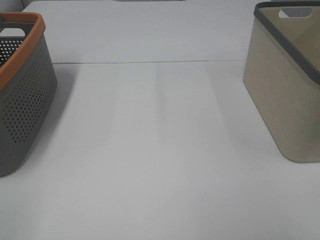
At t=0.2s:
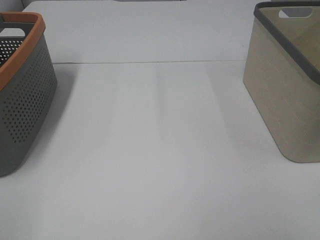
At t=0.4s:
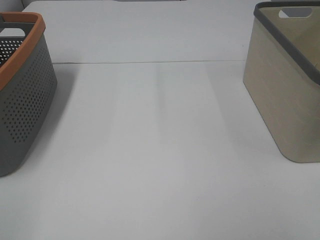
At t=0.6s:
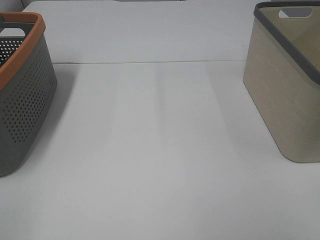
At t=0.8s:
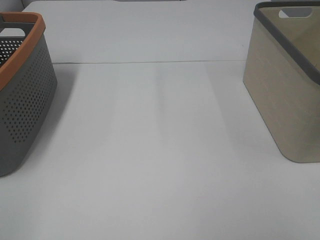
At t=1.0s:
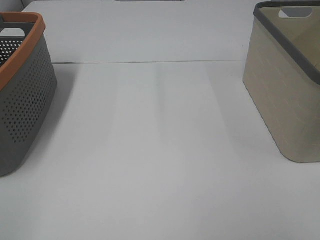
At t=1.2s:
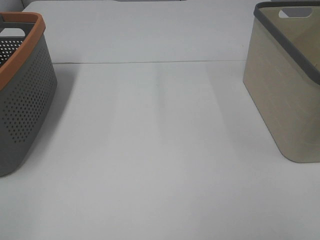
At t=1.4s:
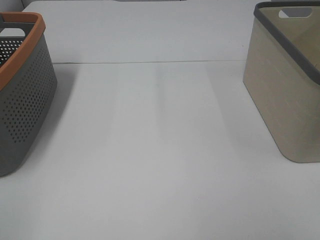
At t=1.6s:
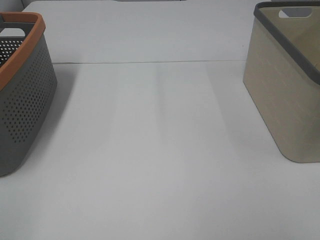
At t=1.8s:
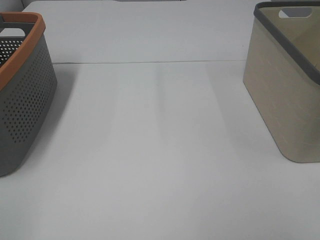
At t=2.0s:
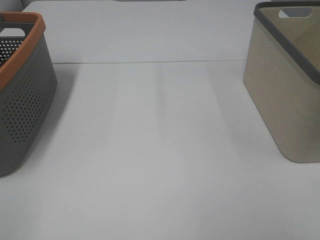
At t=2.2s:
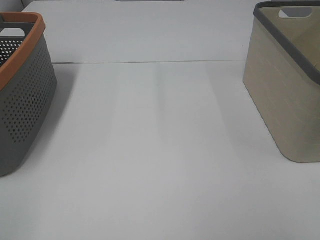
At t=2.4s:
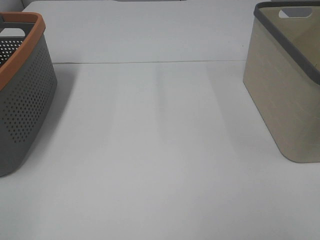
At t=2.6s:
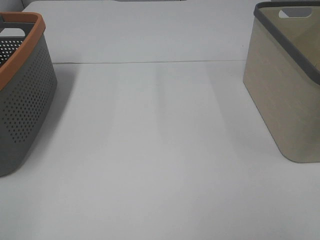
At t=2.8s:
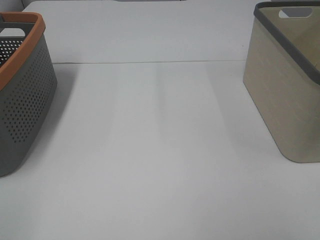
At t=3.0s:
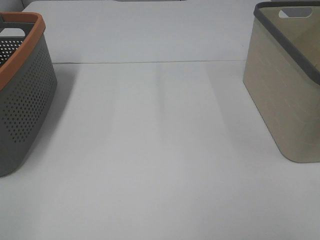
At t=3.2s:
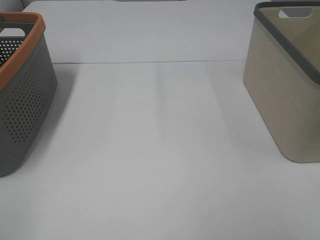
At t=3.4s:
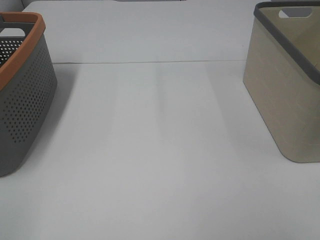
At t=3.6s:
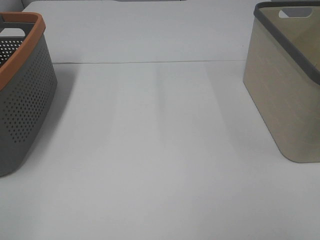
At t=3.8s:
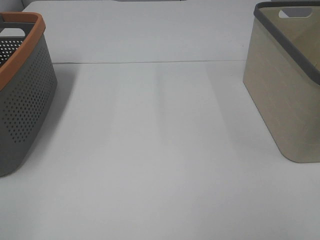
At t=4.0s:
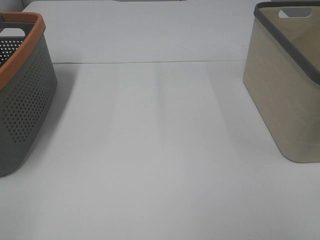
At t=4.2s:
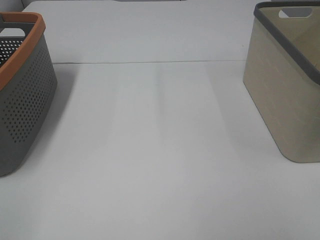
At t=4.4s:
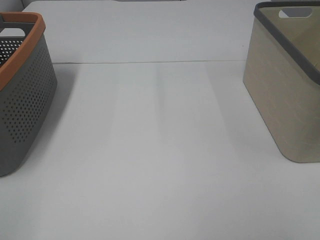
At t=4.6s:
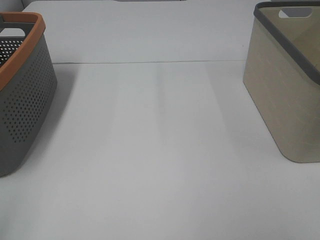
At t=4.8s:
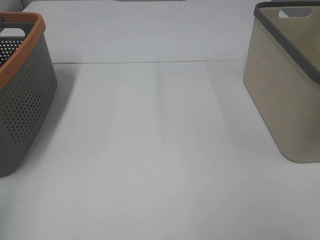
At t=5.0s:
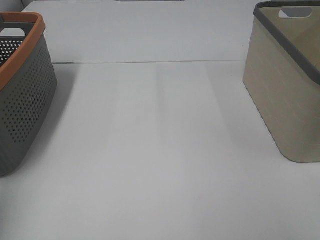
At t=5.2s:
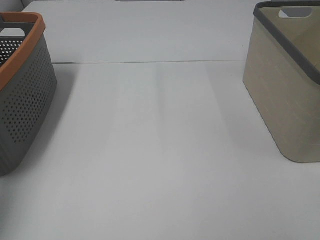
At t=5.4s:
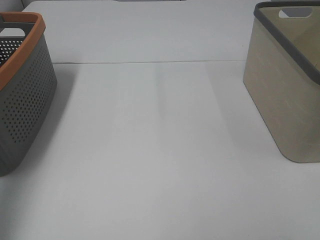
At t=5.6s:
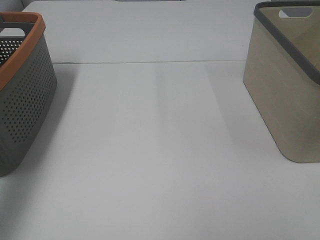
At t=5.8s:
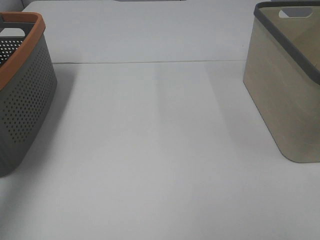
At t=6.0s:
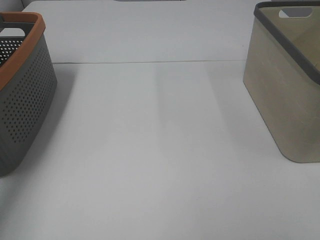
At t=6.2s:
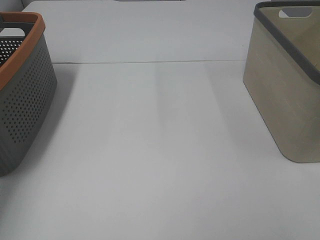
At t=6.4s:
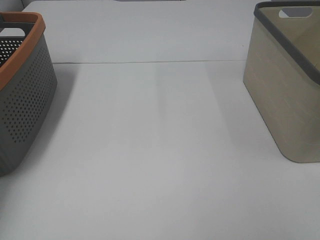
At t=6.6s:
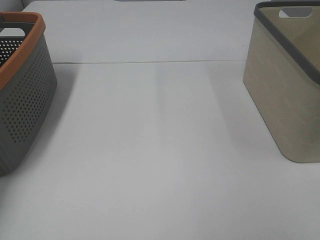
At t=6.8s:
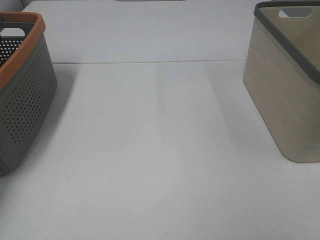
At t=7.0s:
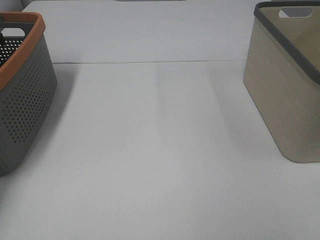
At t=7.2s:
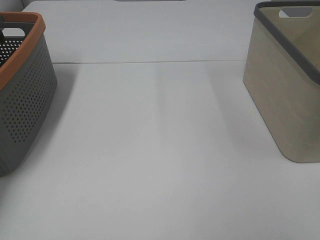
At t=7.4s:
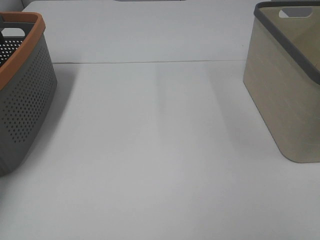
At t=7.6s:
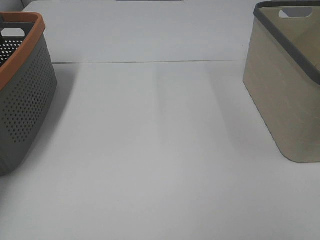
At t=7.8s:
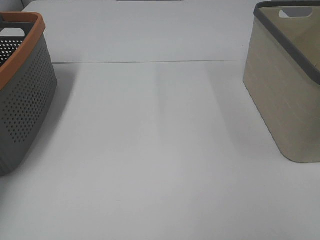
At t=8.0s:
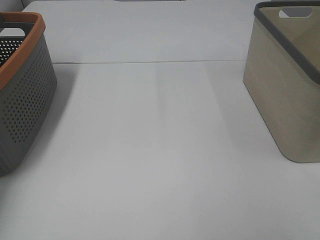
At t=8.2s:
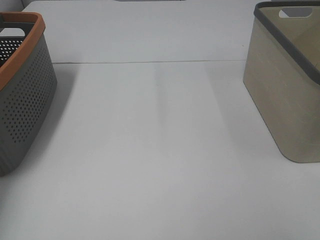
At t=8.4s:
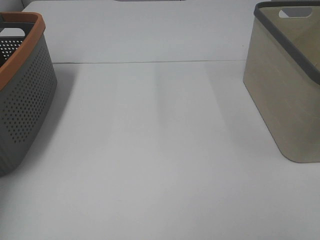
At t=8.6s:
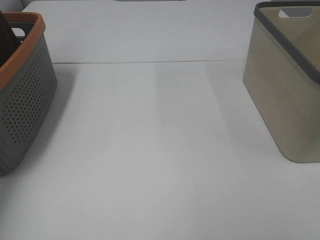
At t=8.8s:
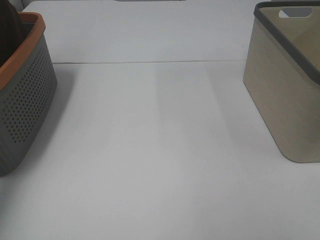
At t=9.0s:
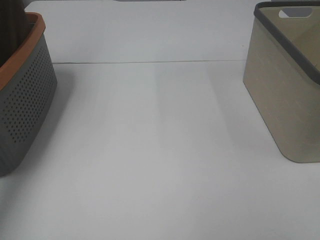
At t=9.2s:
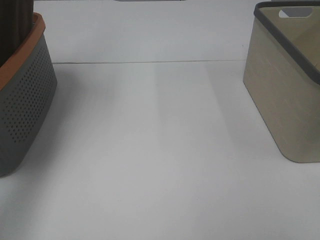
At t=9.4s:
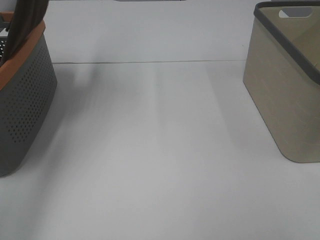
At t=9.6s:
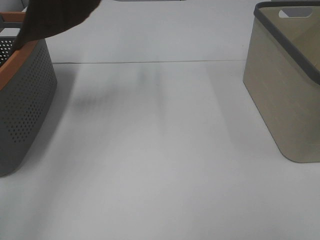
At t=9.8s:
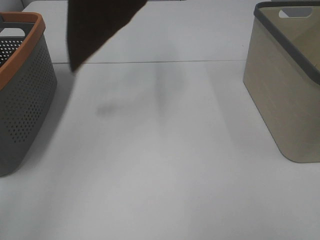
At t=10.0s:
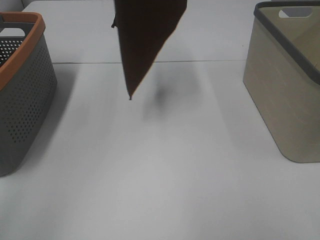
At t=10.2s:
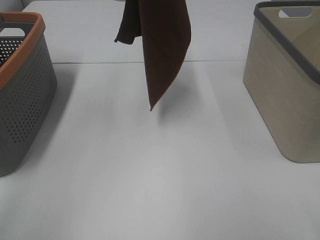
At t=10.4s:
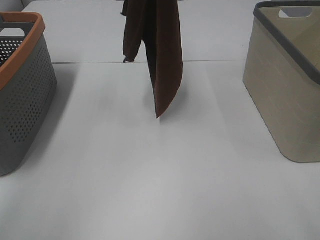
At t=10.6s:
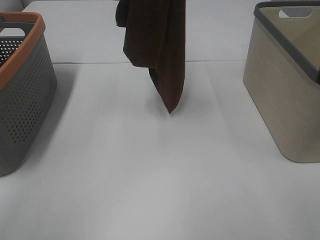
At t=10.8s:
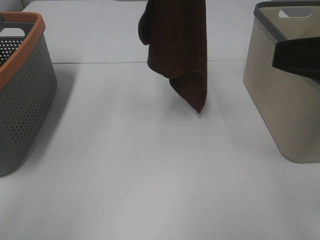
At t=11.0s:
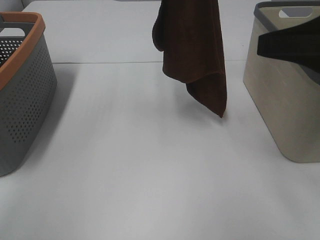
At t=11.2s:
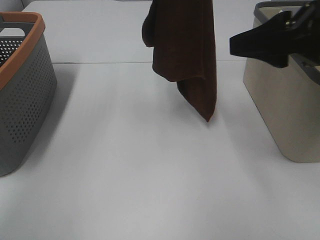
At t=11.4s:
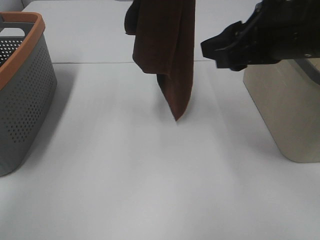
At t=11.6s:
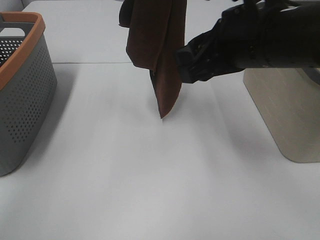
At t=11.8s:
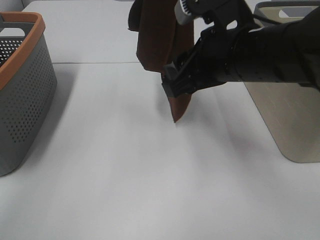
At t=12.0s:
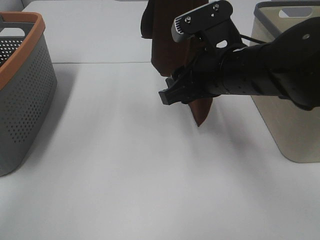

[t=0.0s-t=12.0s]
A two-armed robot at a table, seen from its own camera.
Task of the whole recording: Remove the towel and place it.
t=0.0s to t=4.4s: The two grippers keep their place.
t=4.4s to t=6.0s: The left gripper is displaced forward by about 40 cm.
t=6.0s to t=7.6s: The left gripper goes some 10 cm downward and forward, and closes its fingers.
t=7.6s to t=9.0s: The left gripper moves upward, some 30 cm.
t=9.0s to t=10.4s: The right gripper ends up about 5 cm from where it was; the left gripper goes roughly 20 cm to the right.
t=10.4s to t=12.0s: The right gripper moves forward, to the left and downward, about 30 cm.

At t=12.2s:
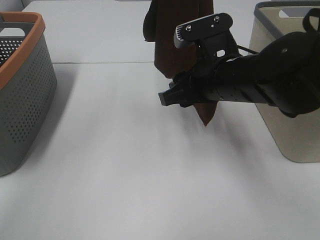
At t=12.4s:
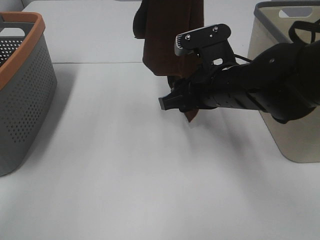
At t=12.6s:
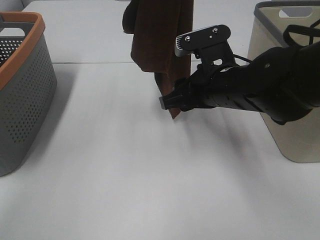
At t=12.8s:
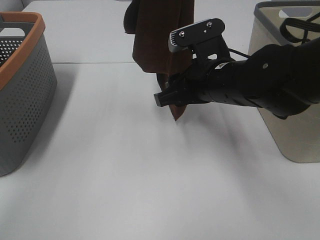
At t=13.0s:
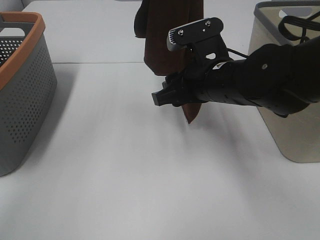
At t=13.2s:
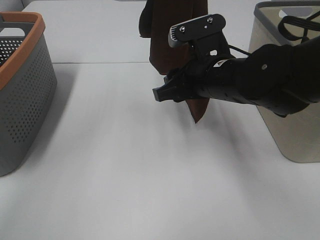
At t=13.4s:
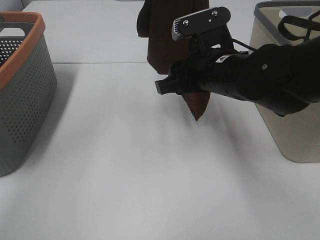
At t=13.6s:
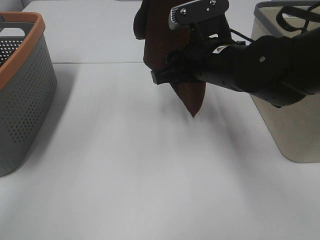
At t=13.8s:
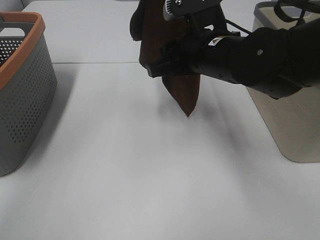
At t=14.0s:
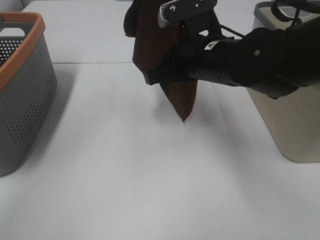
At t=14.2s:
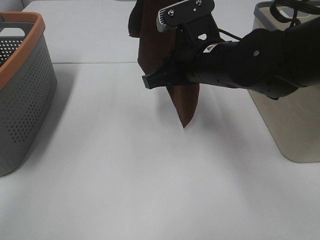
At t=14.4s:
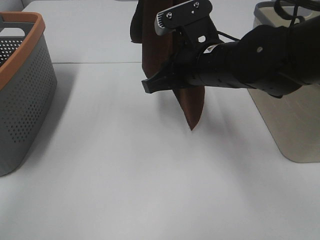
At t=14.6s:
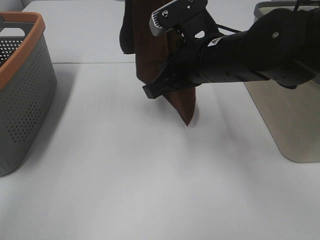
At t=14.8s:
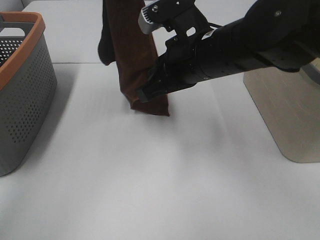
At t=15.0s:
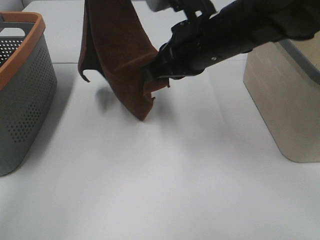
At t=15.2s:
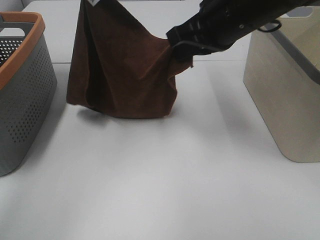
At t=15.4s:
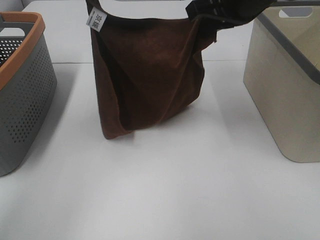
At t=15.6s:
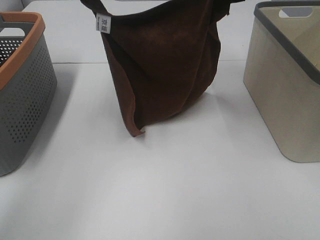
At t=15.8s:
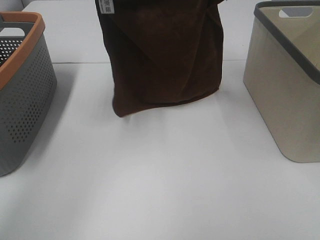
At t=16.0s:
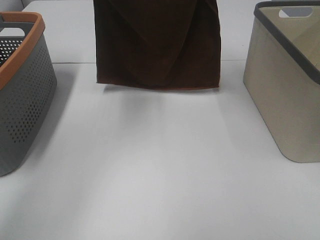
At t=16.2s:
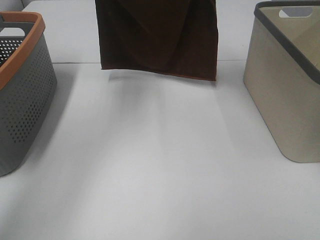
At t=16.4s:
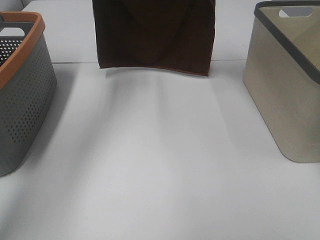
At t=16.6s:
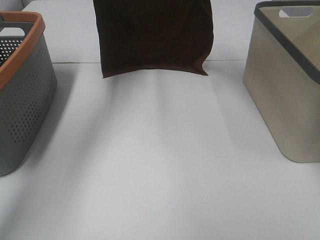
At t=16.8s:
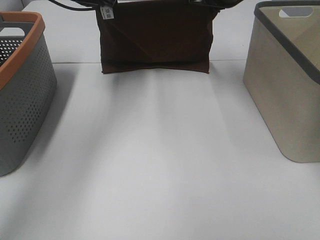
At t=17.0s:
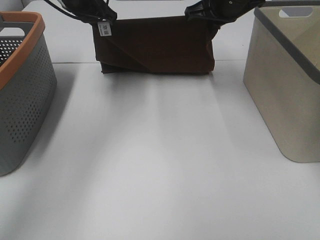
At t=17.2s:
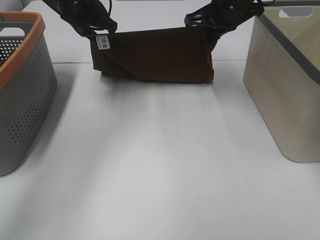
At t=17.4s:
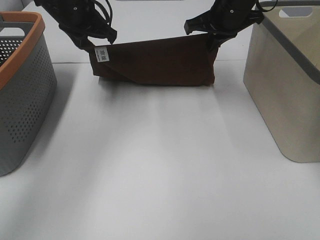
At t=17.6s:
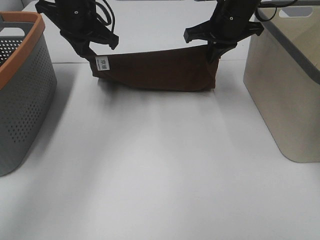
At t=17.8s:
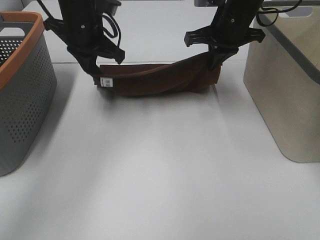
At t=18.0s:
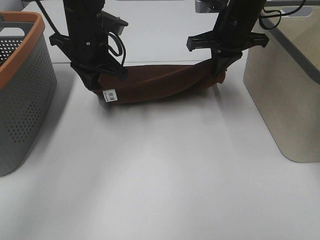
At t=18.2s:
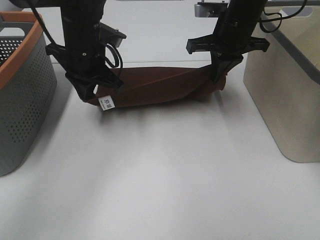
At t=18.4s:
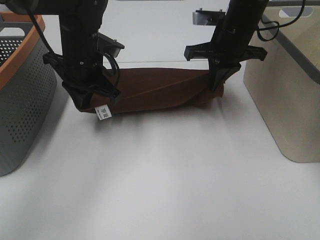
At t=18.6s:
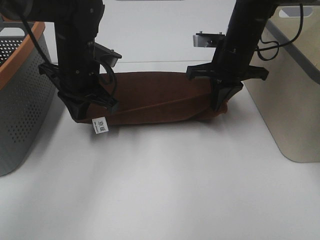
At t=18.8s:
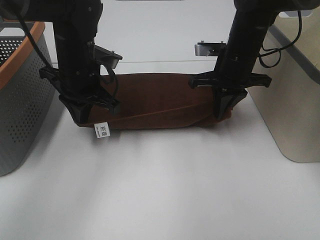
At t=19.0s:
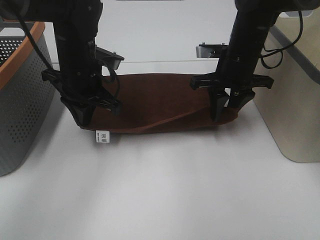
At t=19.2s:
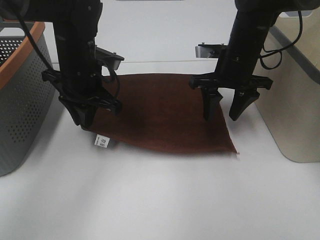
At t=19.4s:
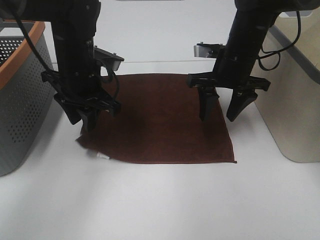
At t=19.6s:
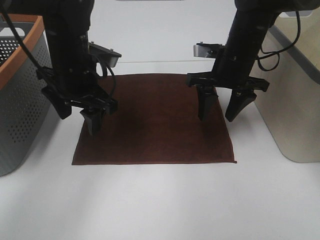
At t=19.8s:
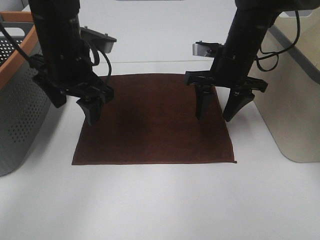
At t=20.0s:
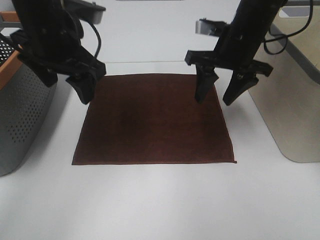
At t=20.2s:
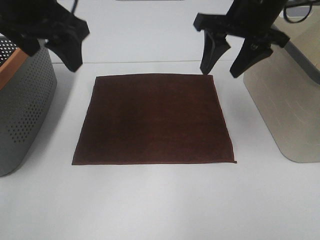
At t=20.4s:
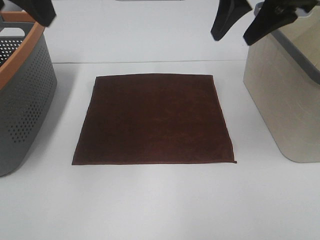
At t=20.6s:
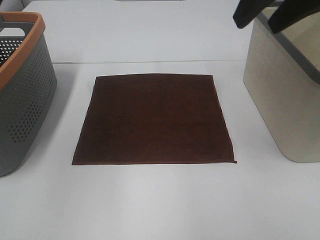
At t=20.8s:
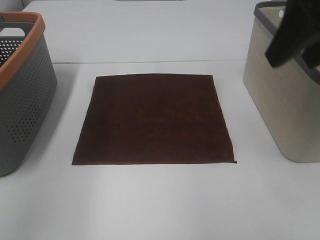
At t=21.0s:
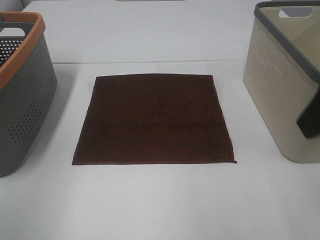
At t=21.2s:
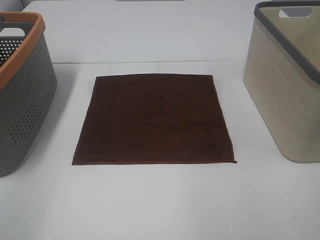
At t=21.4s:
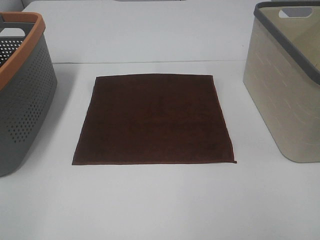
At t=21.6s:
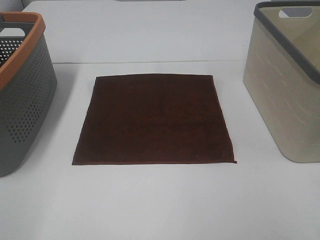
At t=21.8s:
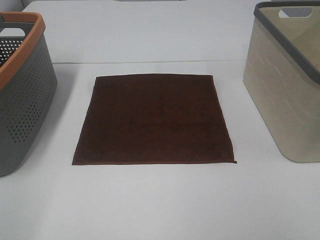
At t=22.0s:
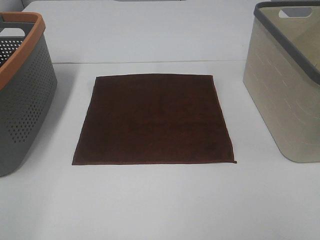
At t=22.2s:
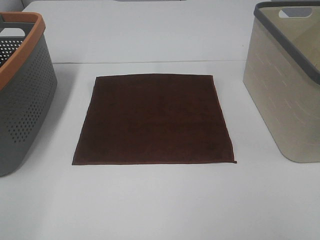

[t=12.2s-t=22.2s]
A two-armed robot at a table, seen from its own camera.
Task of the whole recording: Remove the towel and place it.
Step, t=12.8s to t=15.4s: Left hand: spread the brown towel flat on the table.
Step, t=12.8s to t=15.4s: Right hand: spread the brown towel flat on the table.
t=12.2s to t=13.6s: The grippers stay close to where they were, moving slightly.
t=13.6s to t=15.0s: The left gripper is displaced to the left by roughly 5 cm; the right gripper closes its fingers.
t=15.0s to t=16.4s: The right gripper heads forward, covering some 20 cm. Meanwhile the left gripper heads forward and downward, covering about 15 cm.
t=16.4s to t=18.0s: Both grippers travel together downward and backward, approximately 15 cm.
t=18.0s to t=19.4s: The right gripper shifts about 5 cm downward, and opens; the left gripper goes about 5 cm backward, and opens up.
t=19.4s to t=20.8s: The left gripper shifts roughly 35 cm backward, upward and to the left, and opens; the right gripper goes approximately 25 cm upward and backward.
t=20.8s to t=22.2s: The right gripper travels backward, downward and to the right by approximately 20 cm. The left gripper heads backward, downward and to the left, covering approximately 15 cm.
